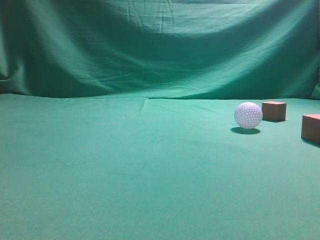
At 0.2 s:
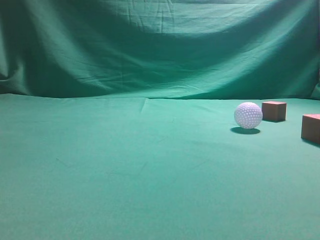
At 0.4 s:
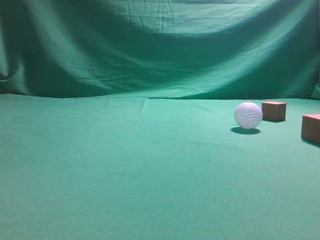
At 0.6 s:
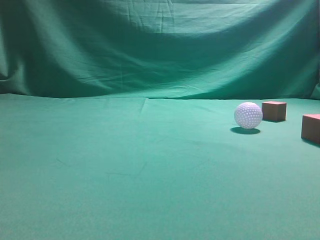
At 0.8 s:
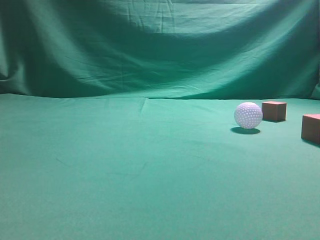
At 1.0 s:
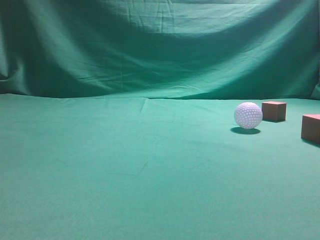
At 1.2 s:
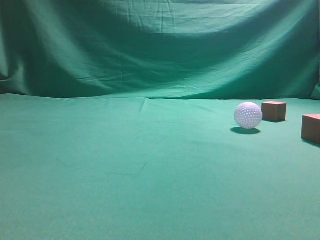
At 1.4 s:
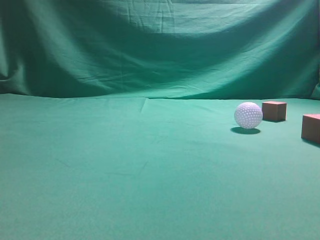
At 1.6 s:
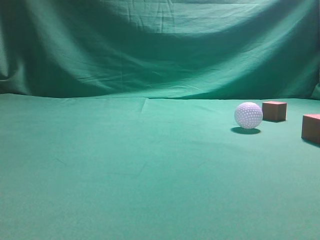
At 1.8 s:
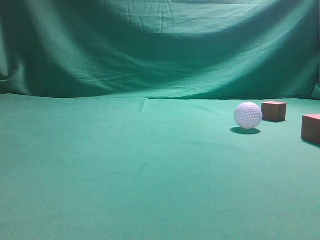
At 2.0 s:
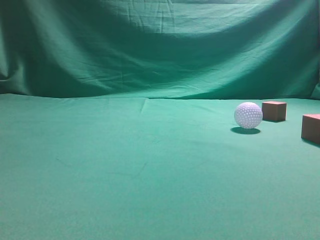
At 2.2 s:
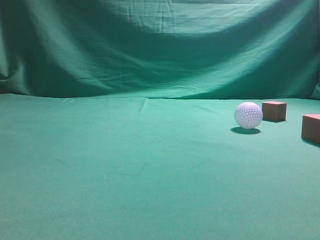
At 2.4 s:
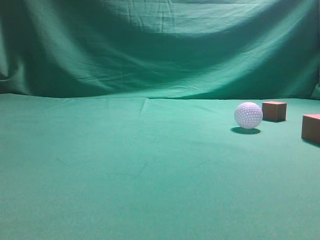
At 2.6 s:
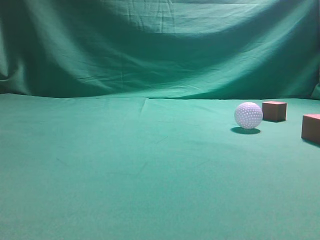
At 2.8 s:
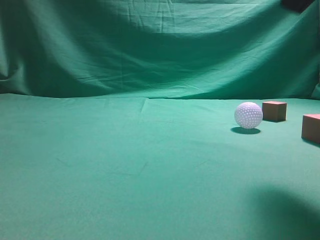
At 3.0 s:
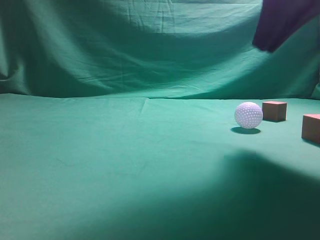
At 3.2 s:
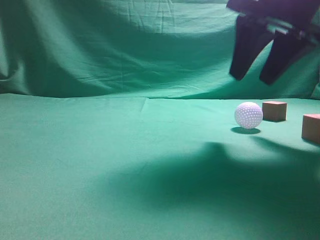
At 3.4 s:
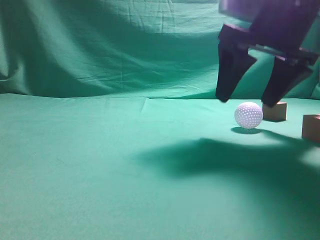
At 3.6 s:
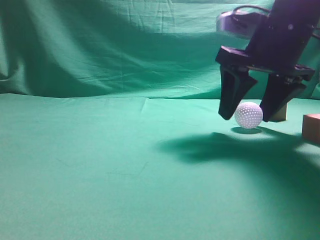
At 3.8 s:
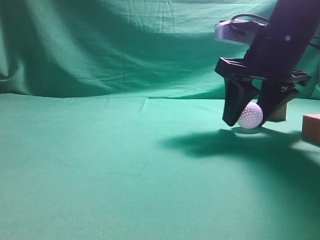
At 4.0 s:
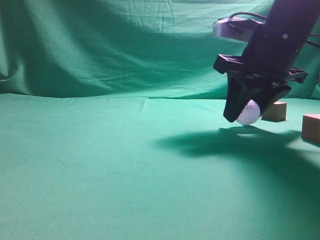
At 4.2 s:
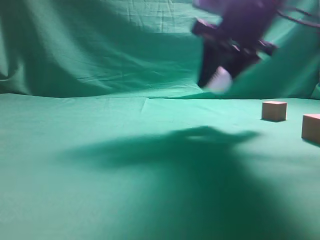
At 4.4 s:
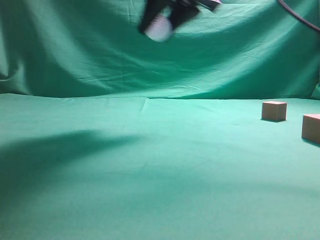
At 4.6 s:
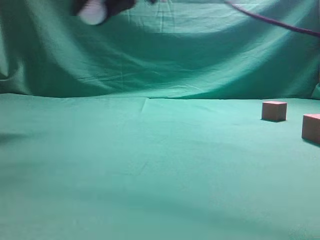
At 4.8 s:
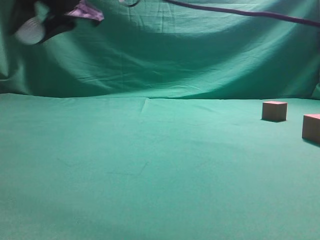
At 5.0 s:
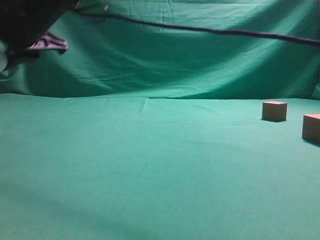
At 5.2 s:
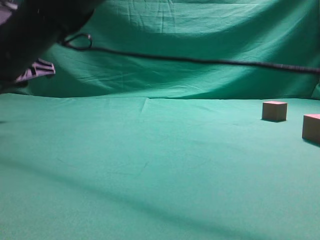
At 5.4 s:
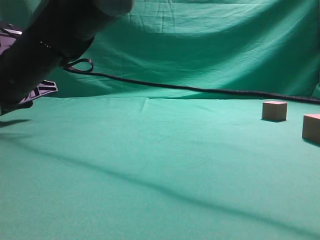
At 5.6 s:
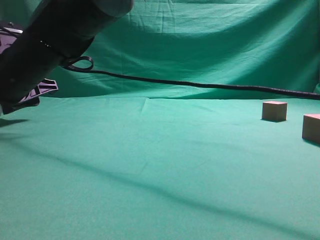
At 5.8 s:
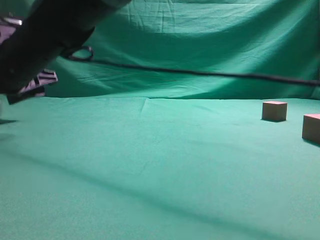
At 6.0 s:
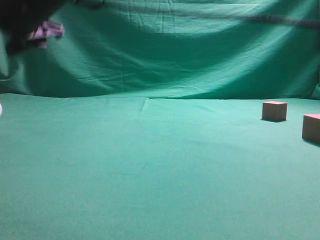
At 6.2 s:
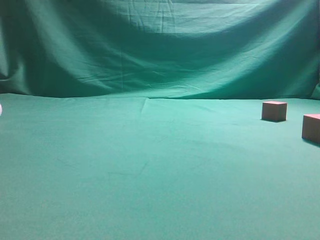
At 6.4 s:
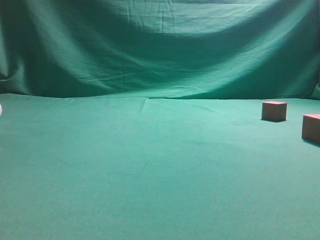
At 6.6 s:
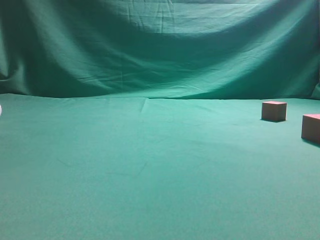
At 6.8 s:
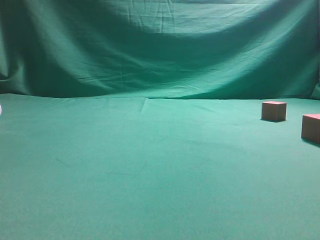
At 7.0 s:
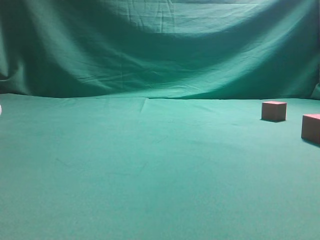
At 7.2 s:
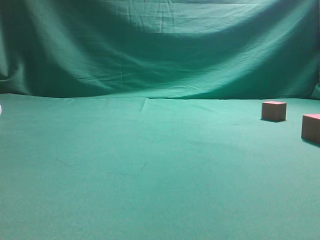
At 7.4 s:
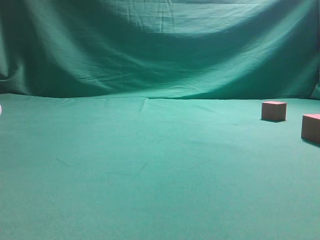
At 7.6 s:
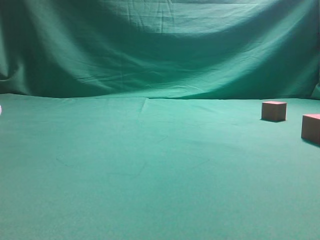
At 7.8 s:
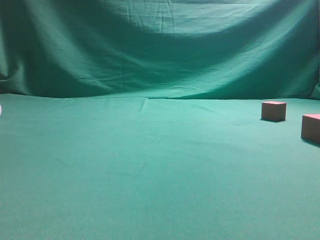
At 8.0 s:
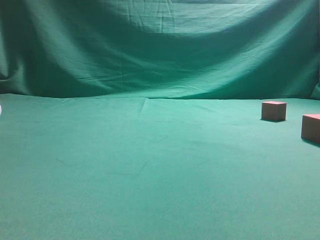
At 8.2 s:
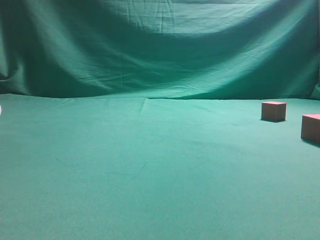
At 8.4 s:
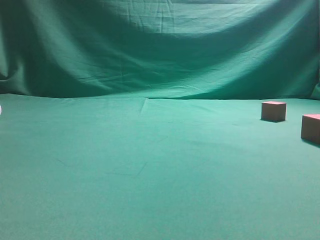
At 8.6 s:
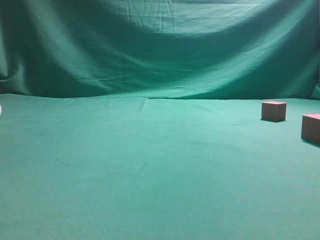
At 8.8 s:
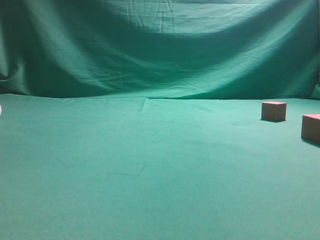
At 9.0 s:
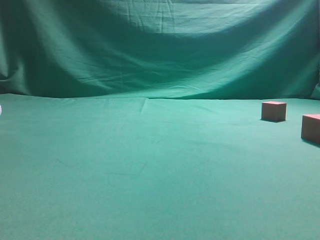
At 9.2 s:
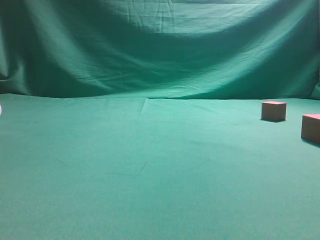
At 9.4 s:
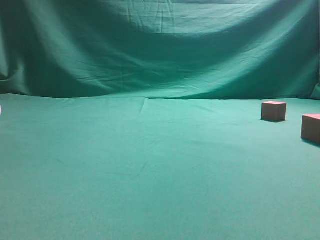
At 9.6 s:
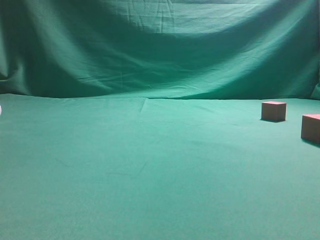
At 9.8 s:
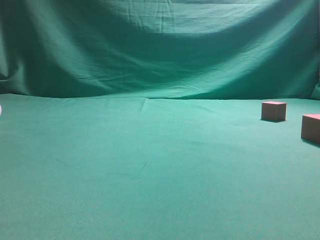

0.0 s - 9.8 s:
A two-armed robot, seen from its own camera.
Step, 0.0 s - 4.0 s: Grasp the spherical object on the right side.
1.4 s - 2.8 s: The right gripper moves forward and to the left, some 20 cm.
2.8 s - 4.2 s: The right gripper shifts some 15 cm forward, to the left and downward, and opens its fingers.
4.2 s - 5.6 s: The right gripper moves to the left, approximately 30 cm.
5.6 s - 7.0 s: The right gripper moves upward and to the right, about 50 cm, and closes its fingers.
